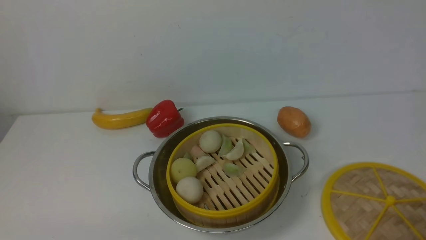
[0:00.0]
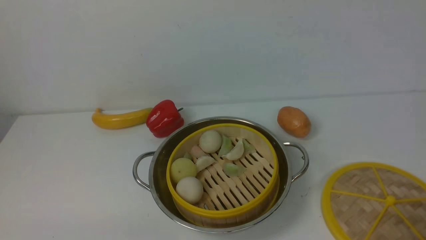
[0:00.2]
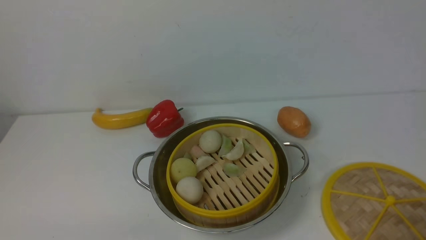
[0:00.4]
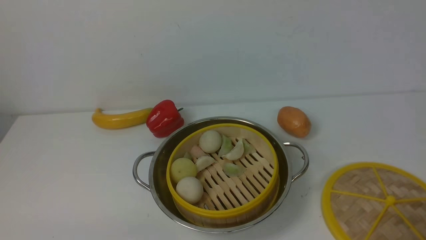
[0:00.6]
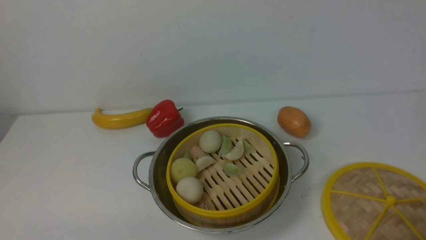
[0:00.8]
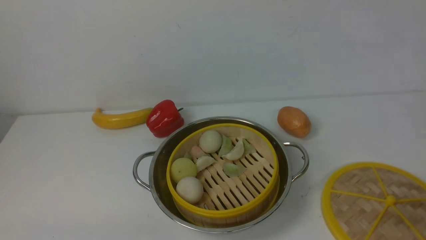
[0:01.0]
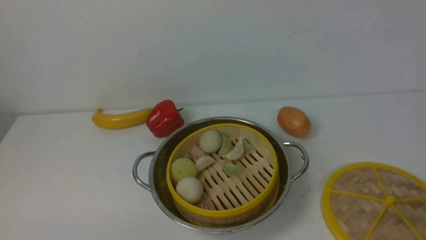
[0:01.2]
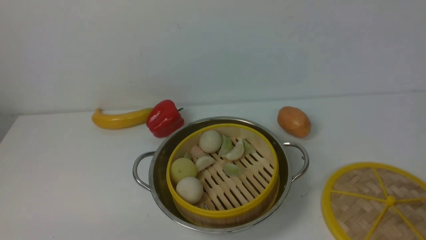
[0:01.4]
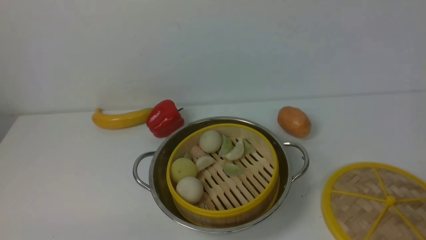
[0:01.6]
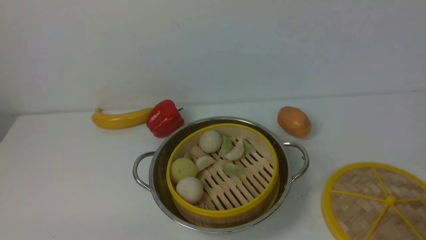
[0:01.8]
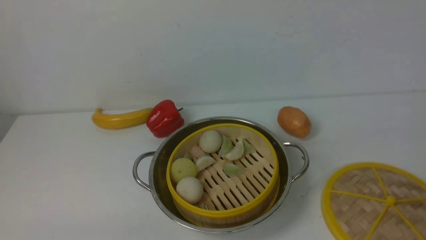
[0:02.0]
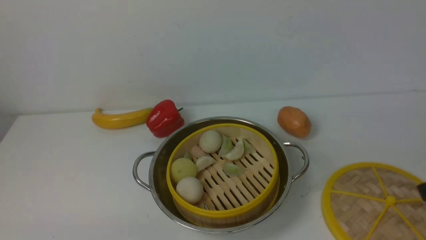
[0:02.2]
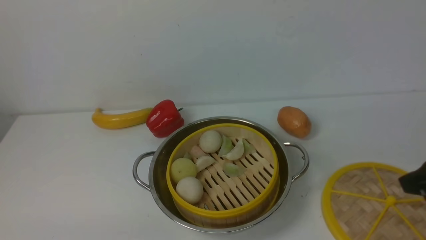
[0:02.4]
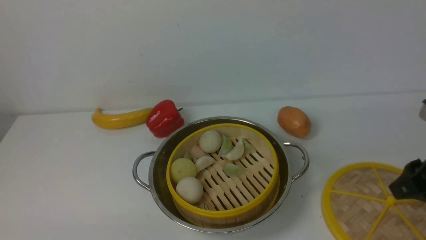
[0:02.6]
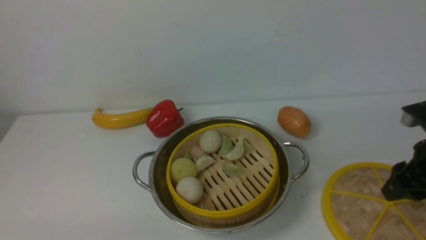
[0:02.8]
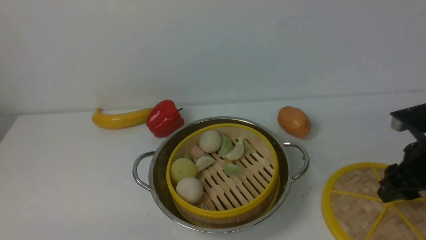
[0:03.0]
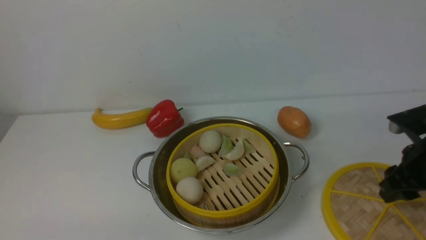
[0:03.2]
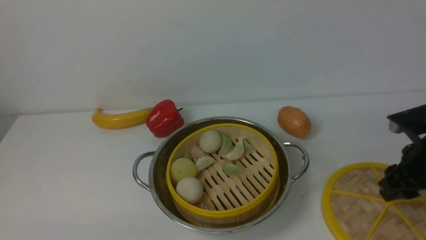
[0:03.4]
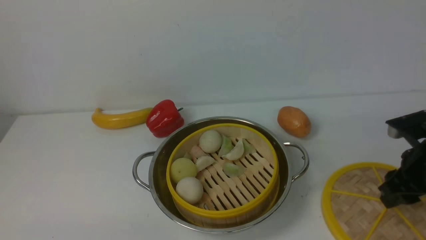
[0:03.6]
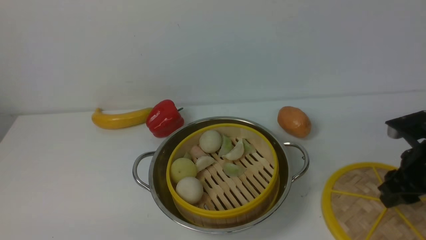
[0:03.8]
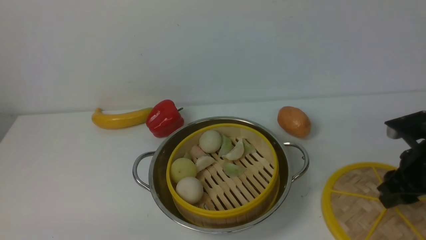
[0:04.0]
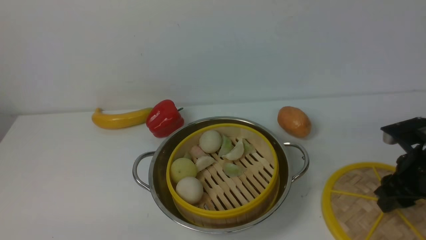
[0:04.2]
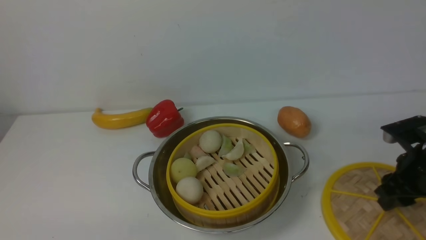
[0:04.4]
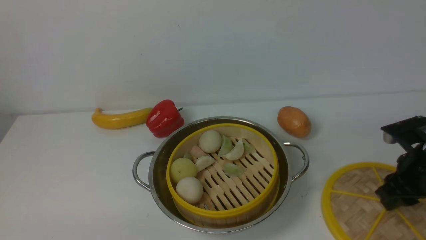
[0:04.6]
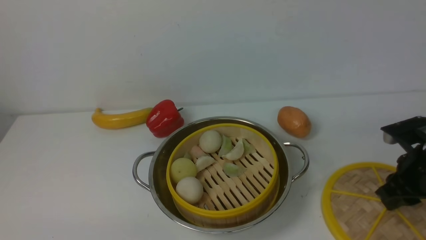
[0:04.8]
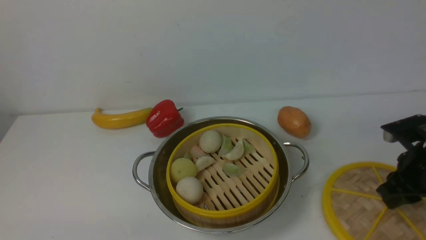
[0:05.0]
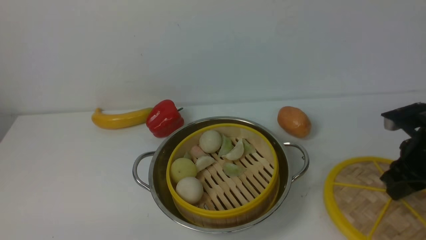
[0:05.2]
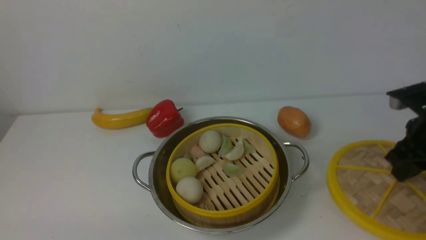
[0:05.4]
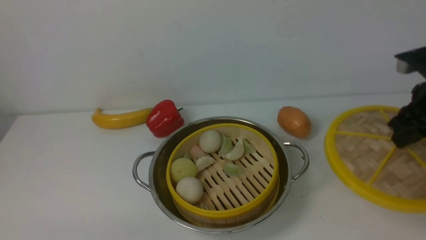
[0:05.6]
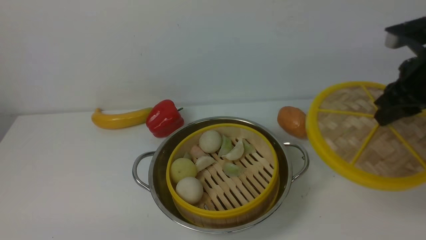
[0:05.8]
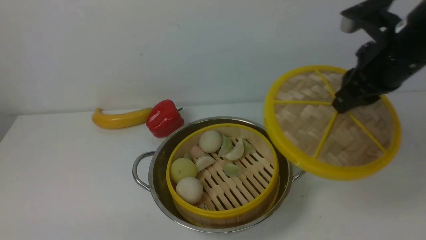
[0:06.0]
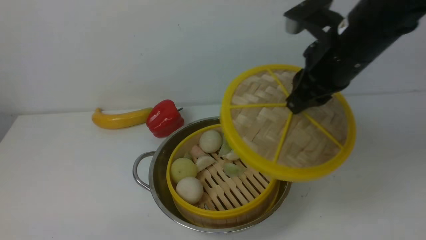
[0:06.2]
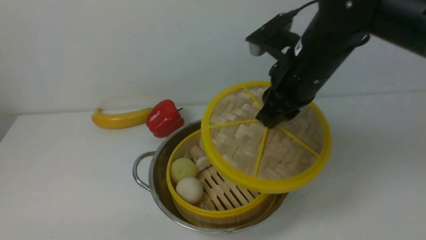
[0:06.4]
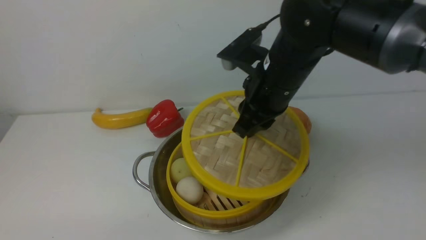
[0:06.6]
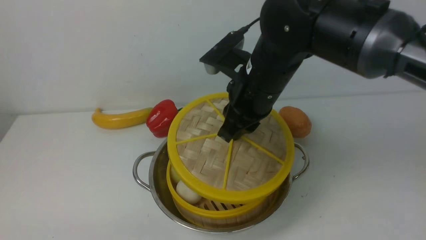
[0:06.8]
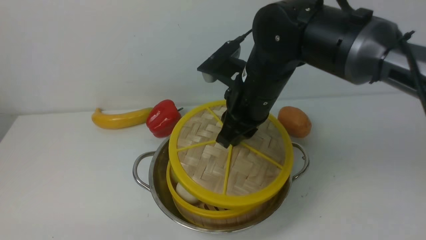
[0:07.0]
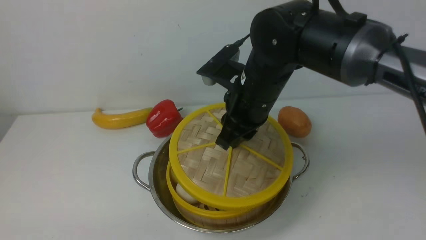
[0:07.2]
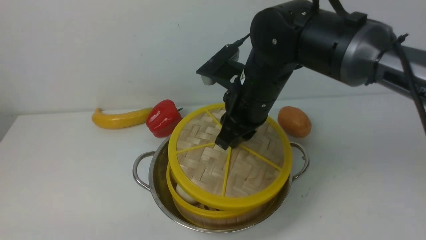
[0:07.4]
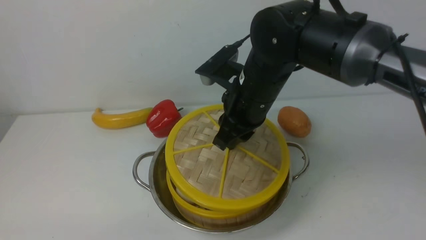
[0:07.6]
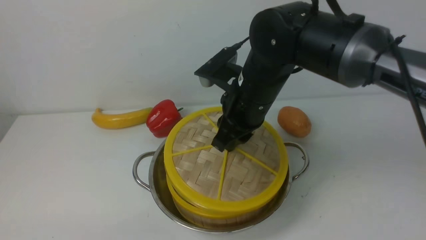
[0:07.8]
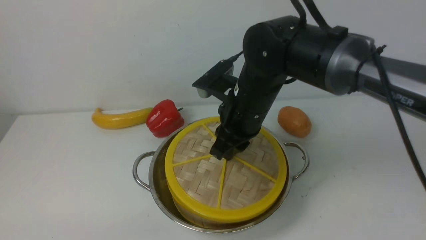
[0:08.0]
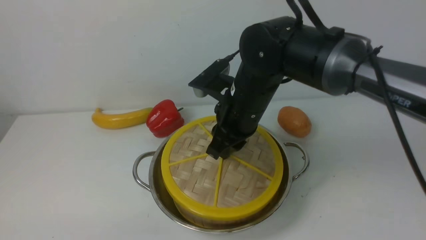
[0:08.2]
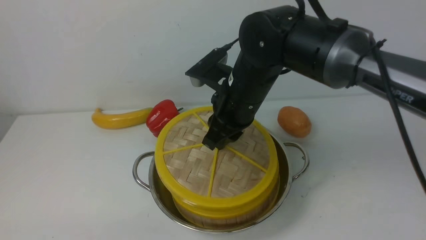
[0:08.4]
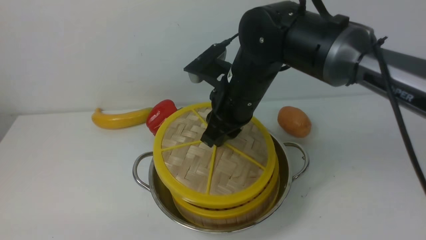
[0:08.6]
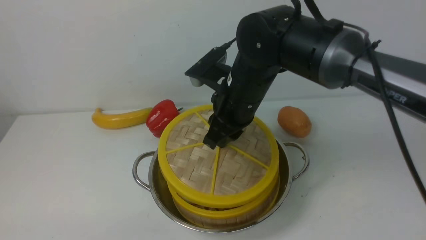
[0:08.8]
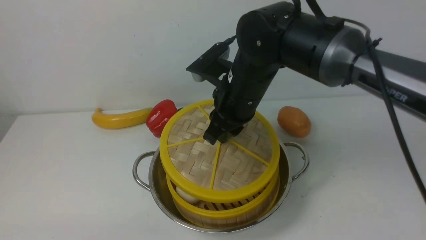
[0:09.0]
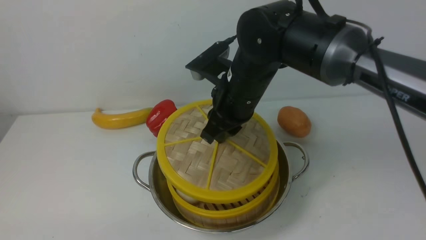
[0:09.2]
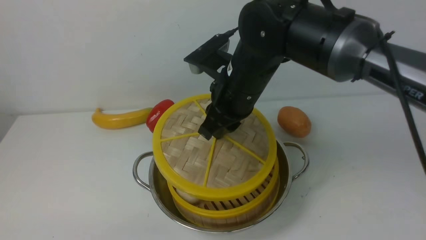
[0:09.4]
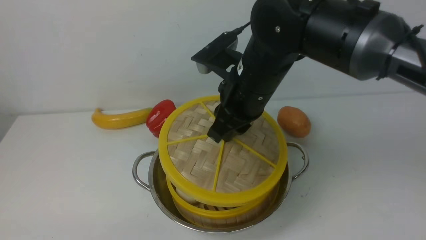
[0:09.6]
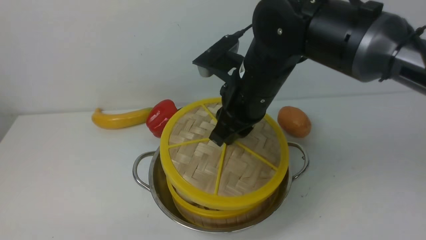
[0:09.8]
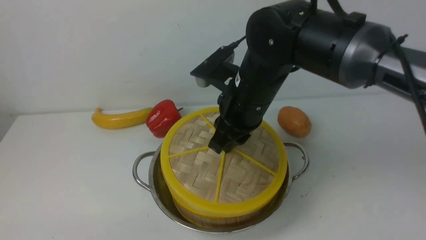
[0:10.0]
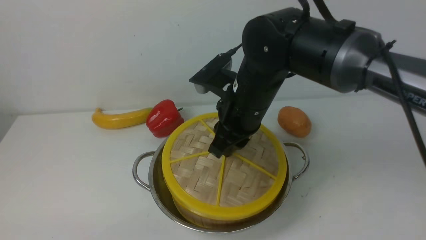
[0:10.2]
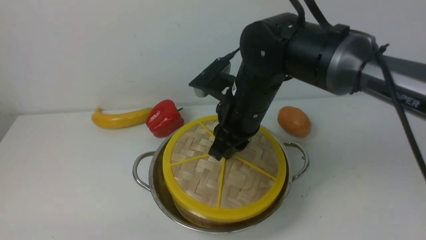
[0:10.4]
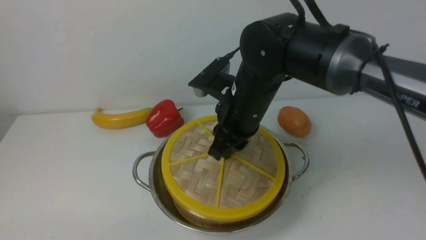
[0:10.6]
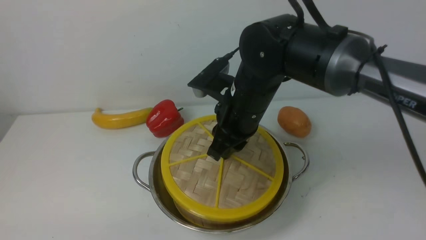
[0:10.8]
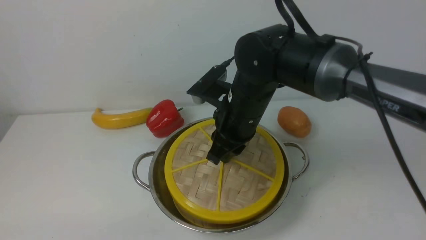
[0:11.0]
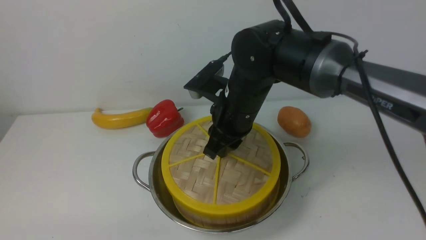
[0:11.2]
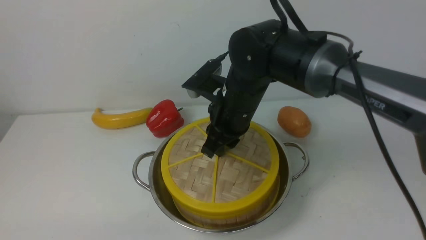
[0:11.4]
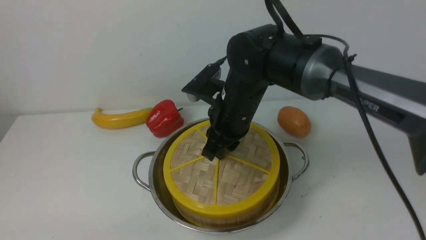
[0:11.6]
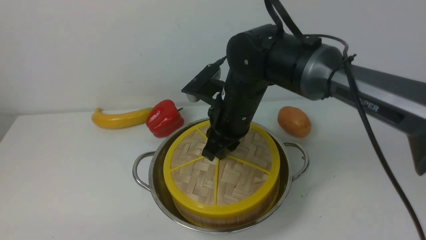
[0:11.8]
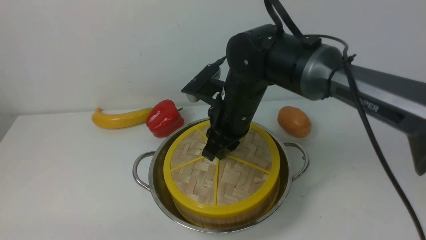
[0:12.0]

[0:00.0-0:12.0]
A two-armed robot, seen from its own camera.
Task of the whole recording: place the steamer in the pot on the white table, and put the lid on the steamer.
Step, 0:00.0 to 0:05.6: use the right arm to lift the lid of the steamer.
0:01.6 to 0:03.0: The right gripper travels forward by roughly 25 cm.
0:03.0 to 0:04.4: The right gripper moves about 5 cm.
0:04.4 to 0:06.0: The right gripper moves upward and to the left, roughly 15 cm, and closes.
0:06.0 to 0:07.6: The right gripper goes roughly 20 cm to the left.
0:07.6 to 0:12.0: The grippers stay close to where they were, moving slightly.

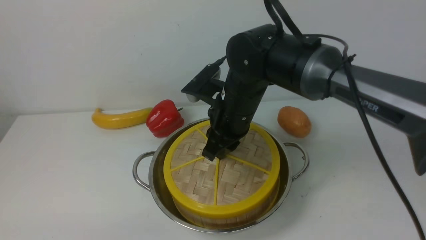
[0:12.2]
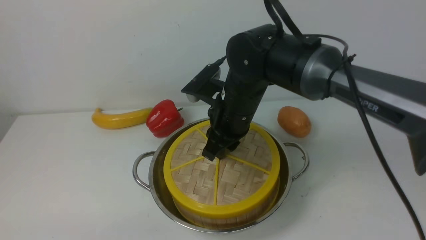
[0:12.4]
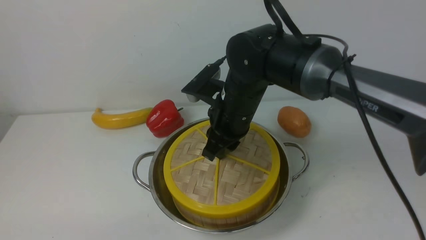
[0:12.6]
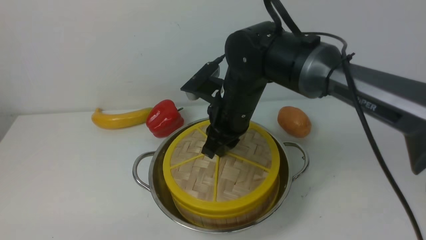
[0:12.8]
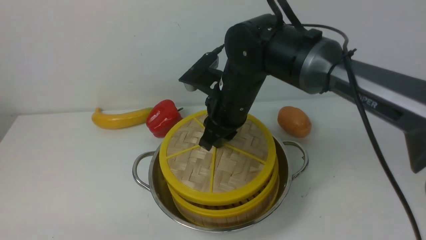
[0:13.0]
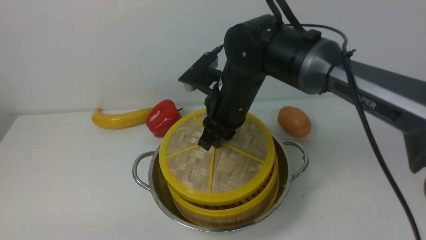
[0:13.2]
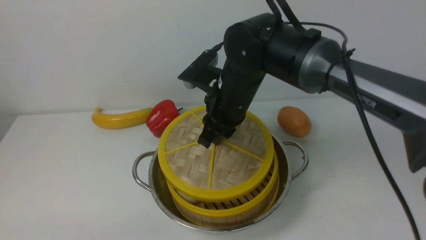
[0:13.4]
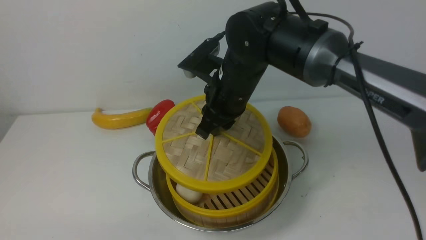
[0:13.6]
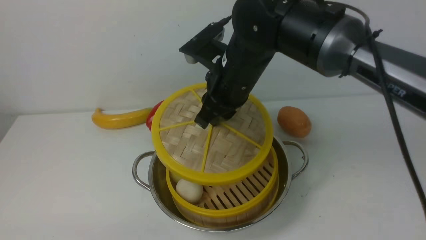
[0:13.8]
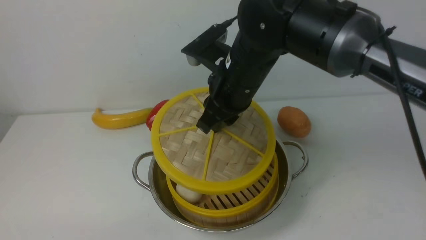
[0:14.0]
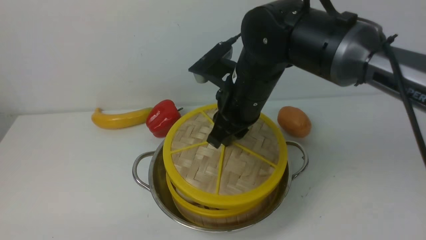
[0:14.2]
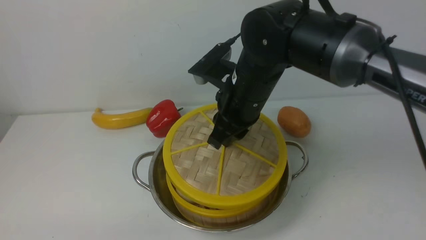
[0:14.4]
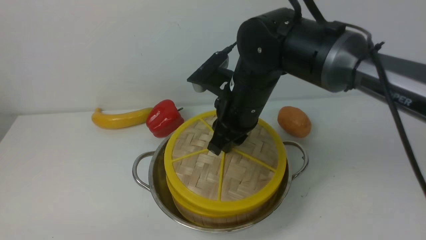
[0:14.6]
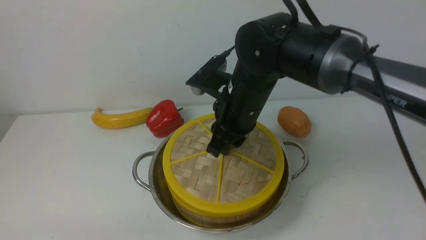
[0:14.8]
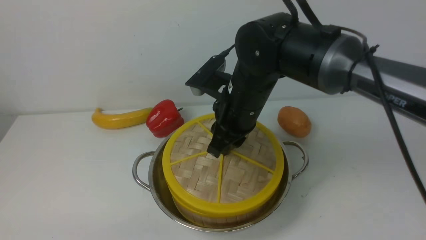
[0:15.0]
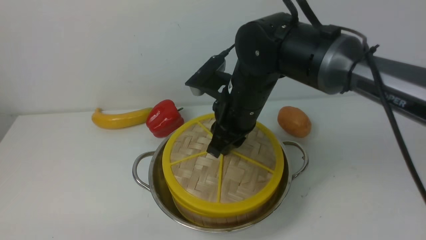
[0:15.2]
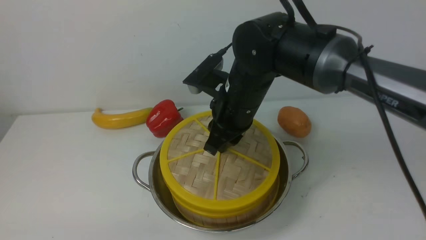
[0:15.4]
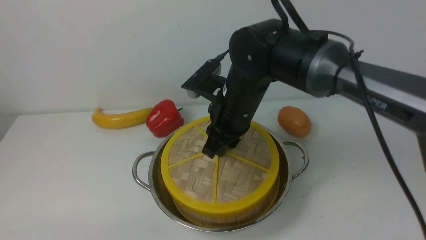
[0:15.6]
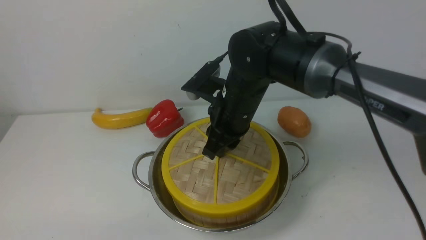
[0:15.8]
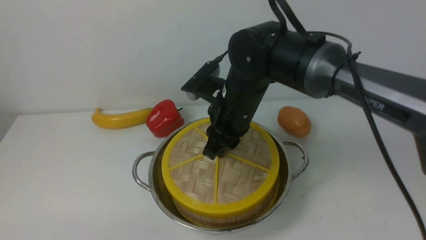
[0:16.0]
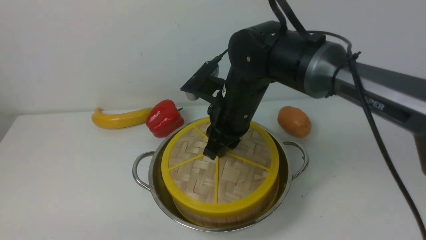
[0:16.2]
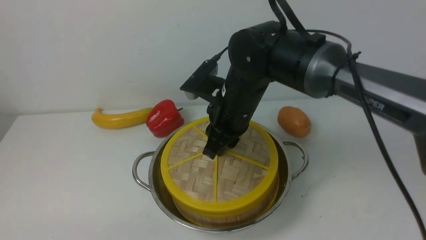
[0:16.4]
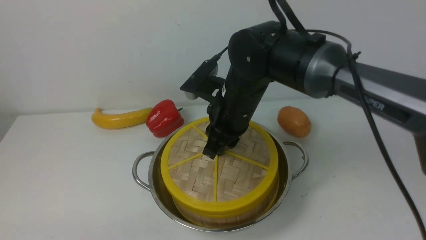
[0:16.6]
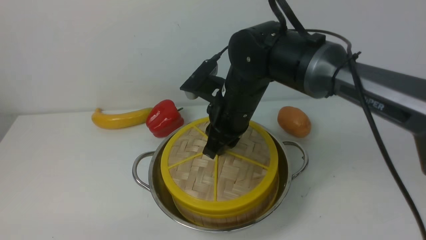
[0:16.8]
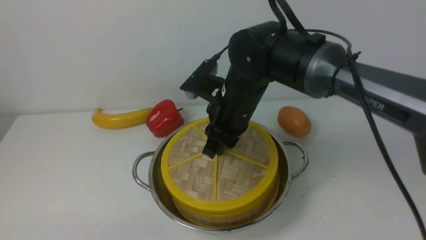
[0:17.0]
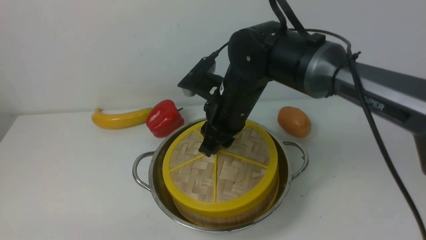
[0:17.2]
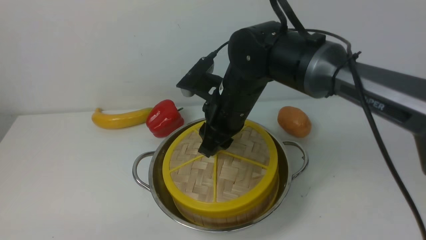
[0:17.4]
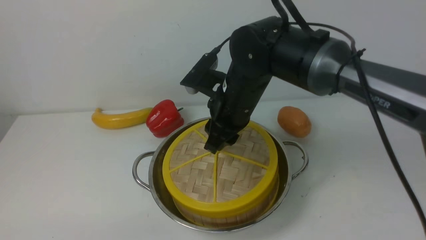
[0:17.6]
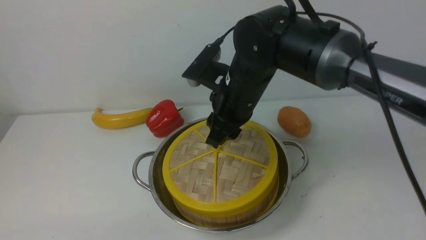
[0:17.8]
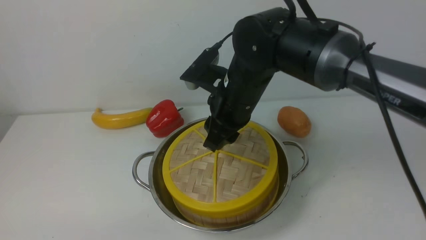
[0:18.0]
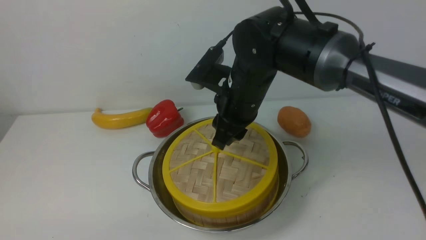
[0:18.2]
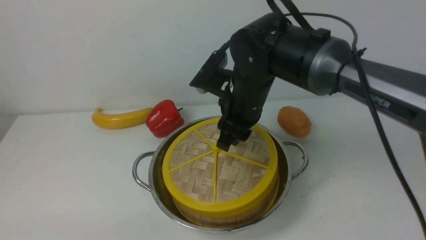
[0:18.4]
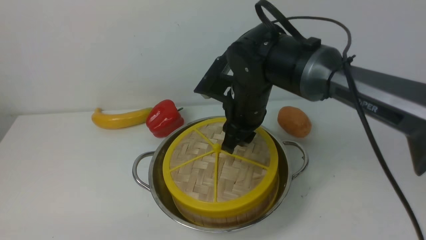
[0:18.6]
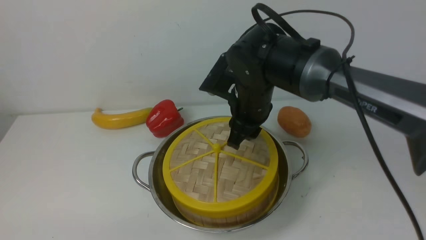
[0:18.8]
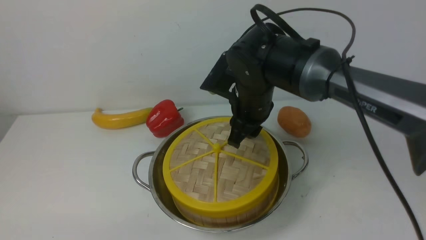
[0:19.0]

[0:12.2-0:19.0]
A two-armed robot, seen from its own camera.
Task of the whole recording: place the steamer in the pot on the white table, and put the lid on the steamer.
0:12.2 to 0:16.2: The grippers stay close to where they were, moving slightly.
0:16.2 to 0:17.6: The right gripper opens.
